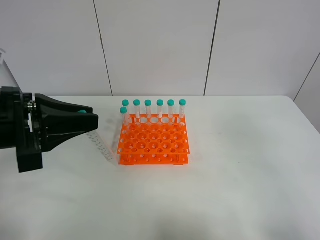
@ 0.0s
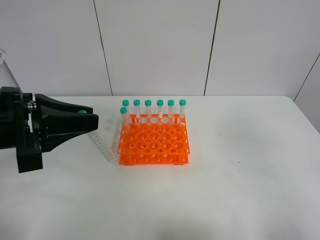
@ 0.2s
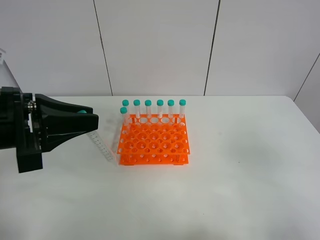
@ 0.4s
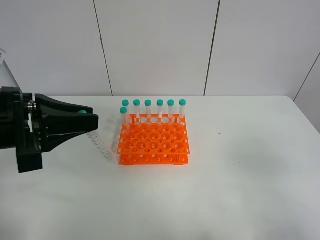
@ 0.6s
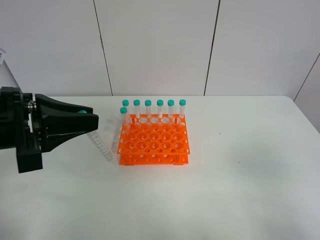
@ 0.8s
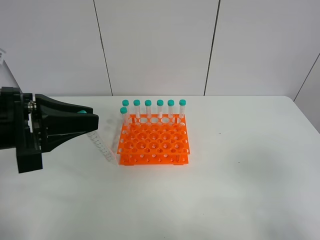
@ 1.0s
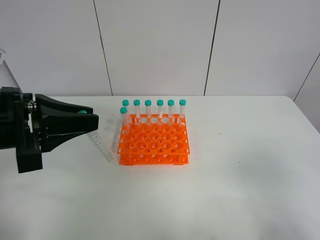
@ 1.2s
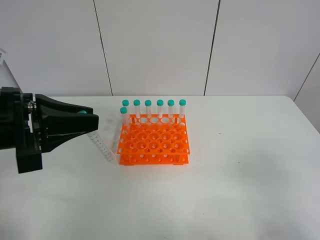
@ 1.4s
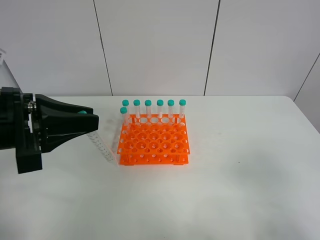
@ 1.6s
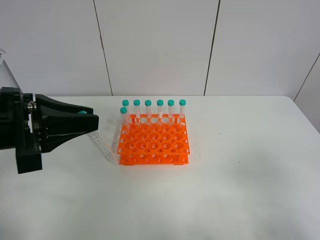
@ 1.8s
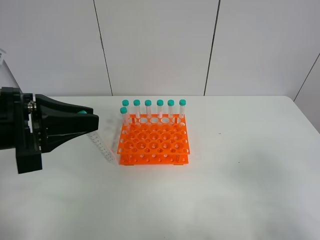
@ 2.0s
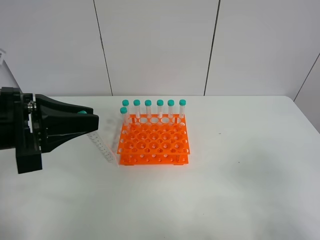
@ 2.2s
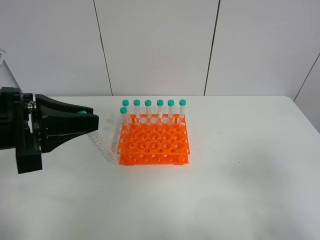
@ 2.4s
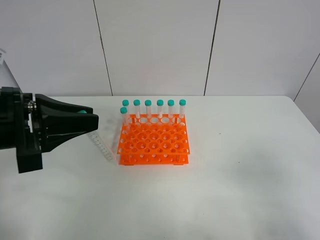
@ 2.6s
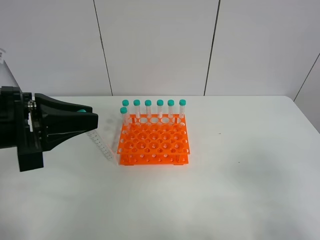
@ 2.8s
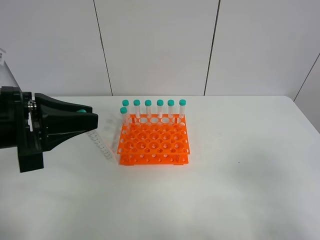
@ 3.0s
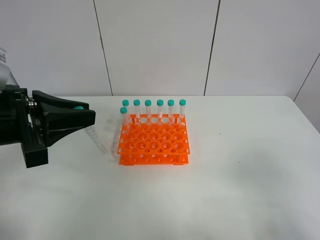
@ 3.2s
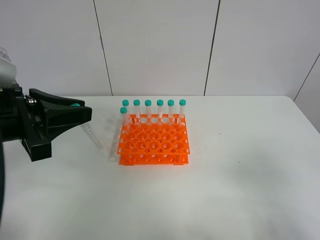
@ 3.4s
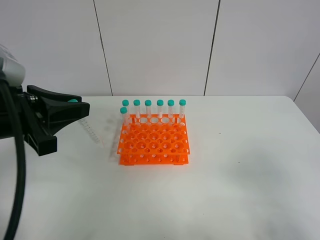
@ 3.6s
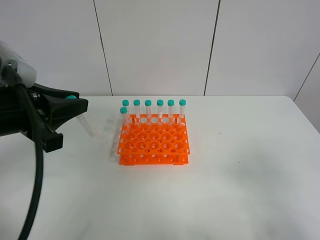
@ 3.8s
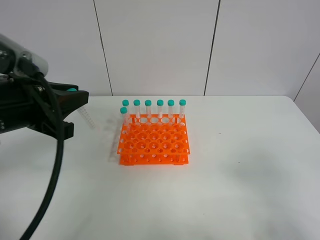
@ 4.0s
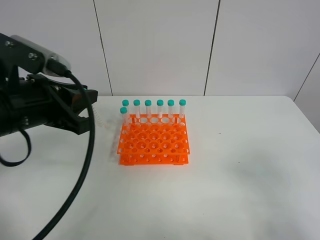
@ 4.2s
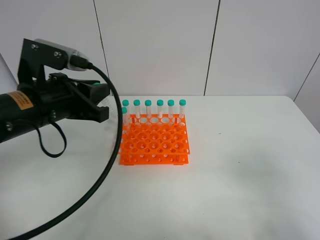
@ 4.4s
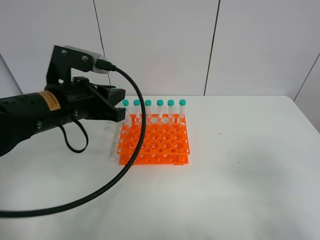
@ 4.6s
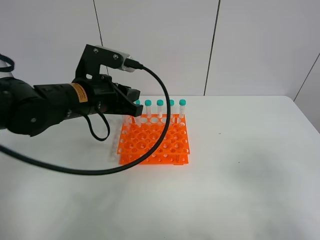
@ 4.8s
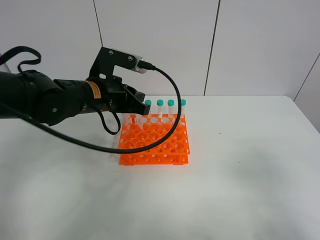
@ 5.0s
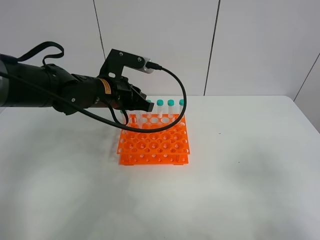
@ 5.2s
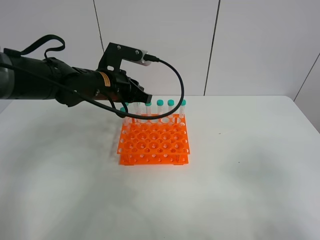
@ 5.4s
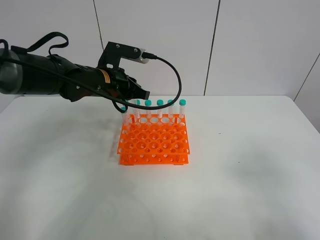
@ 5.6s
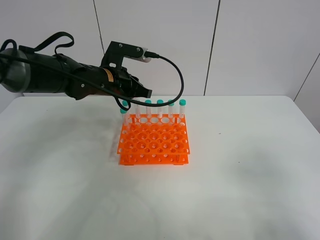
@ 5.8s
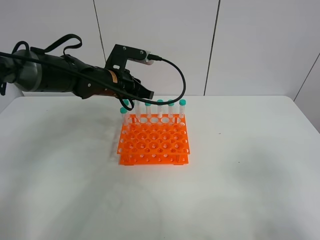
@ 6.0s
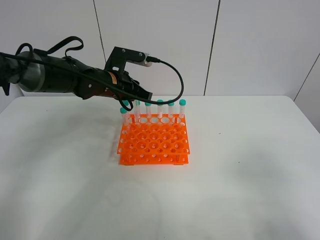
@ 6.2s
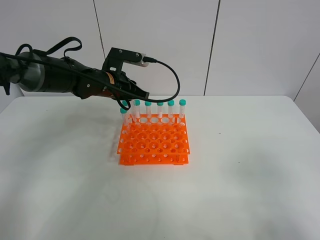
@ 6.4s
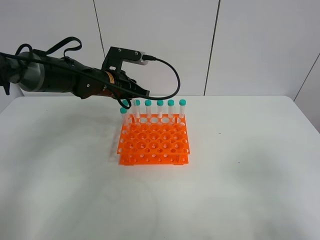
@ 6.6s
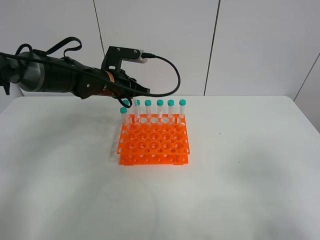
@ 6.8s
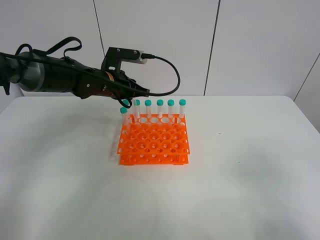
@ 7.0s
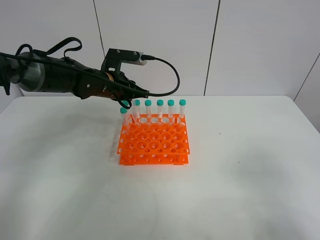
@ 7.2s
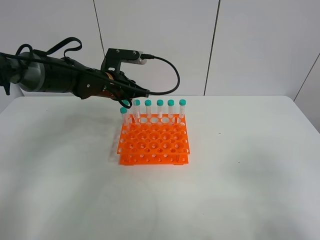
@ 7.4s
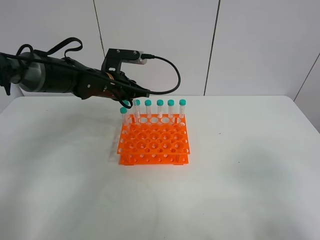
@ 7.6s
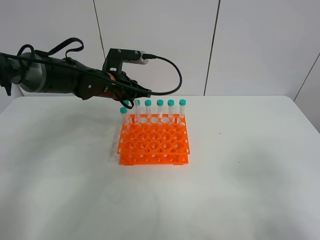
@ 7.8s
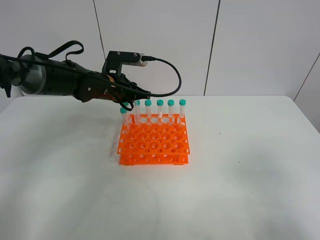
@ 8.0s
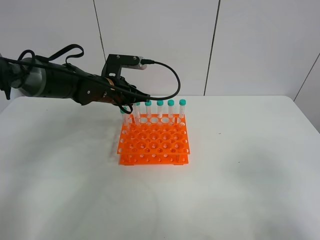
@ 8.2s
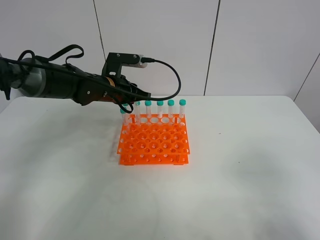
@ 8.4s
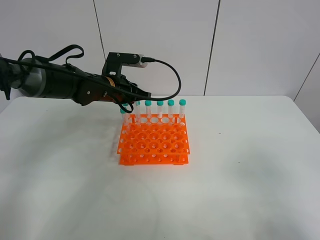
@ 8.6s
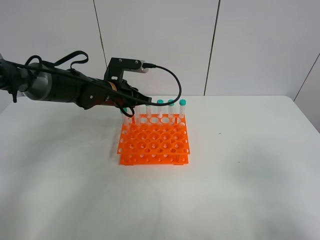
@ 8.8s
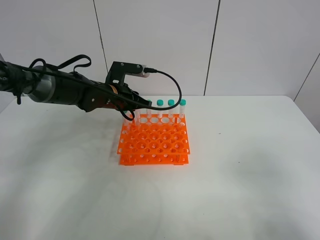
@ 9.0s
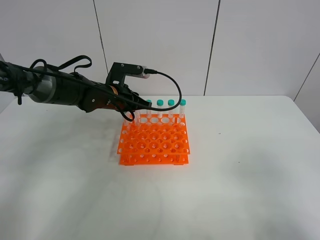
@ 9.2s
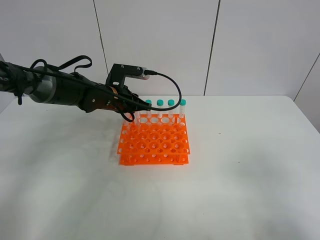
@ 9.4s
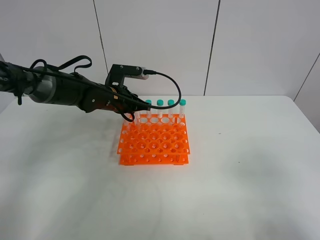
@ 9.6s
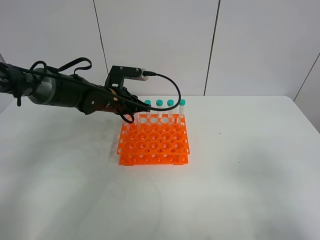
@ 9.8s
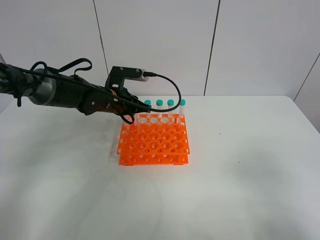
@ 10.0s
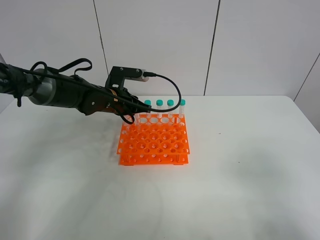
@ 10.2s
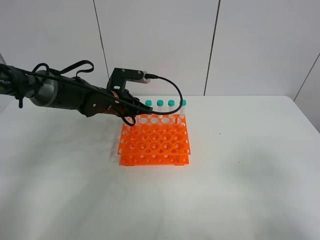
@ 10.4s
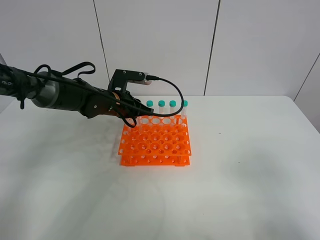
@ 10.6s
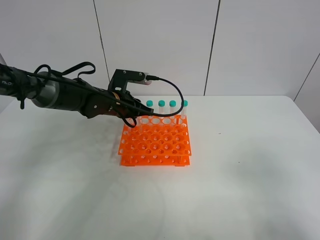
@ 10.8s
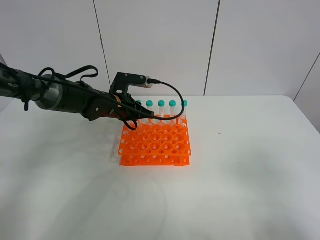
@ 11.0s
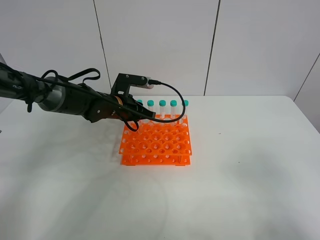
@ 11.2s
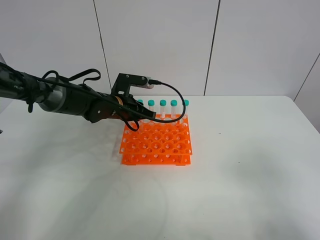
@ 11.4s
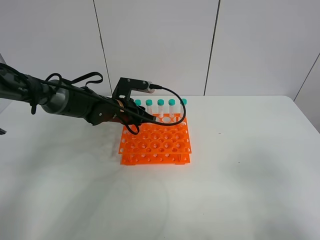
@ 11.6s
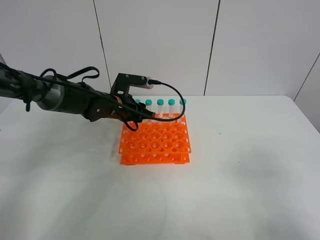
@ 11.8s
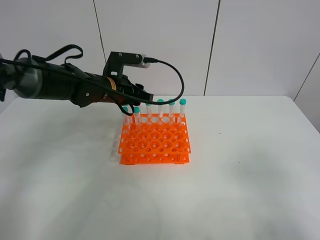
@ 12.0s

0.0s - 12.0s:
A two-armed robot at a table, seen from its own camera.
Task of the whole recording: Put the test tube on the table back onto the test tube rack.
Step, 0.0s - 11.8s: Place the test tube on the test tube rack with the left gripper.
0.0s - 1.6s: The right gripper shifts approximately 10 cm downward.
1.6s - 3.0s: Neither gripper changes place.
3.0s - 4.4s: The left gripper moves forward, about 5 cm.
4.4s - 6.0s: The left gripper moves forward, some 15 cm.
6.0s - 10.4s: The grippers stay close to where they were, moving slightly.
10.4s - 12.0s: The left gripper is displaced upward by some 5 cm, and opens.

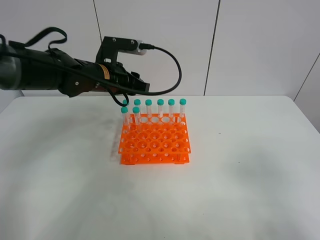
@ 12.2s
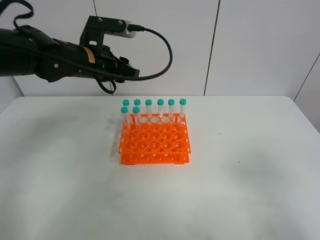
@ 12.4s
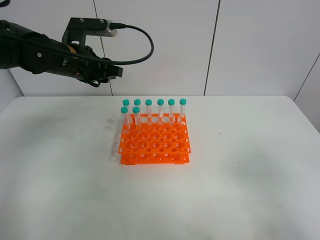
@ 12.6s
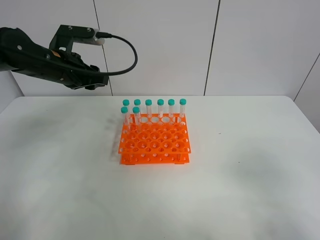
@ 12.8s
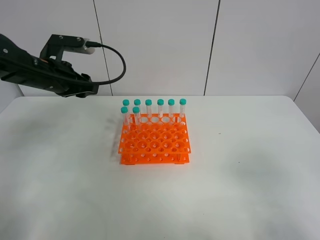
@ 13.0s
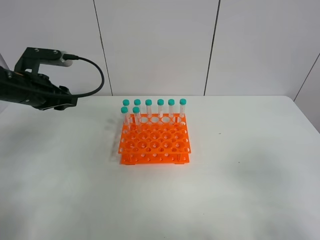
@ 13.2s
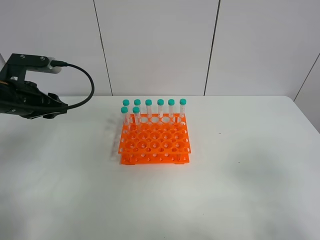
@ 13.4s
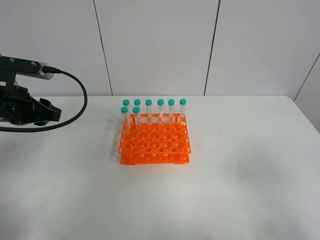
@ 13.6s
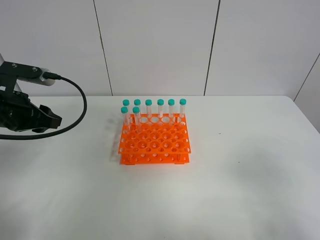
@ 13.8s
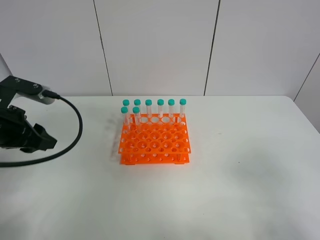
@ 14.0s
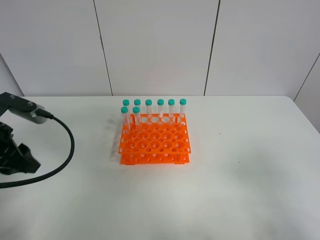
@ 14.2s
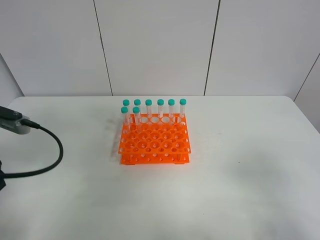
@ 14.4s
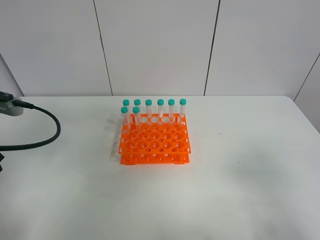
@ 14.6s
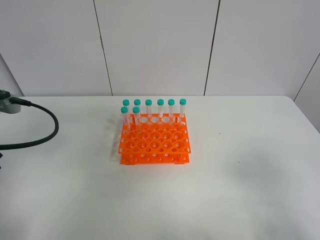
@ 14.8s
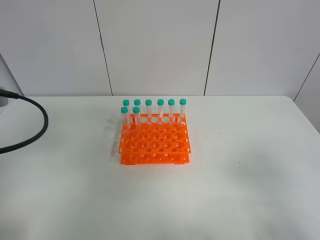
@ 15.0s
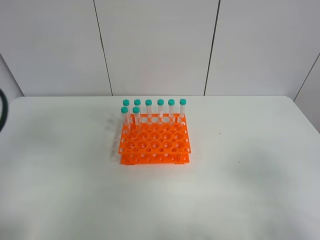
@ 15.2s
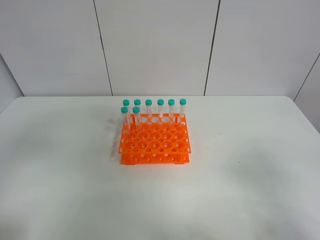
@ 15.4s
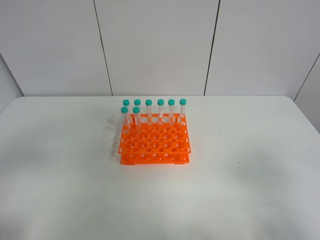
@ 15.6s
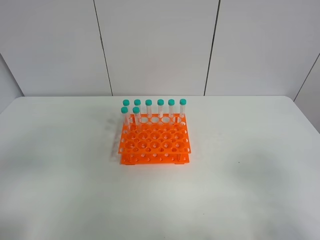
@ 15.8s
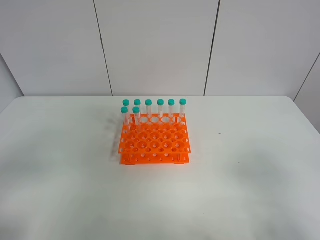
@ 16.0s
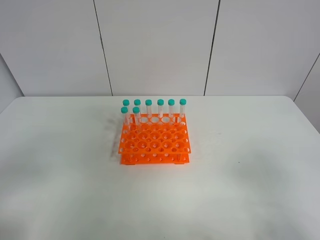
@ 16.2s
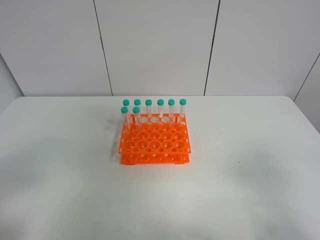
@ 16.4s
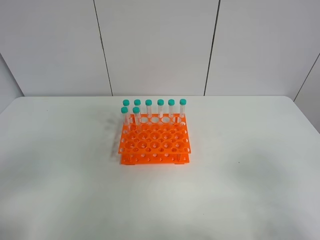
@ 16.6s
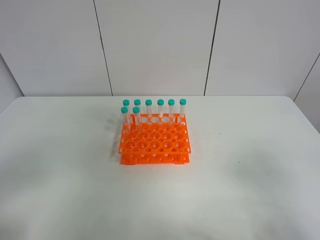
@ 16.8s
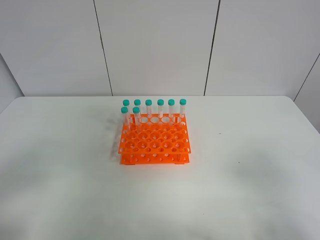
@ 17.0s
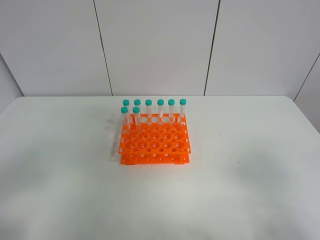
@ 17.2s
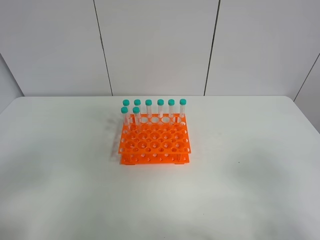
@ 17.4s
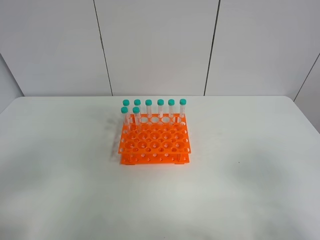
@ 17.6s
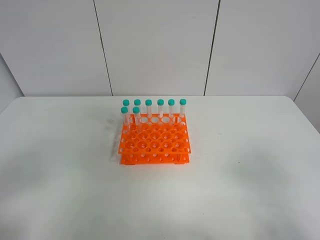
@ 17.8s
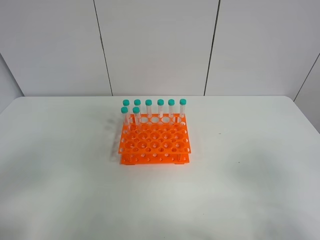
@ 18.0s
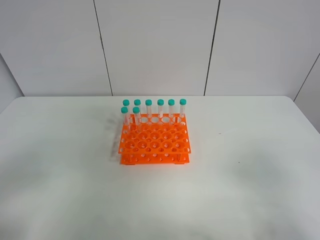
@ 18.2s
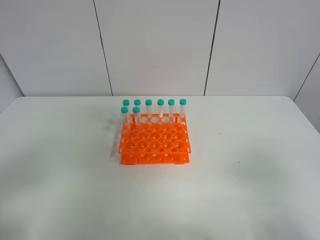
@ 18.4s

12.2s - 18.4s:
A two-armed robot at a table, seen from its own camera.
Task of the whole recording: Put the test tube on the table back onto the test tube rack.
12.2s - 13.8s: The left gripper shifts some 20 cm to the left and backward.
13.8s - 15.4s: The left gripper moves backward and upward, some 20 cm.
16.8s - 18.4s: Both grippers stay put.
